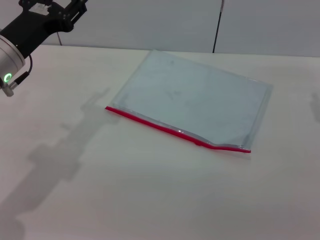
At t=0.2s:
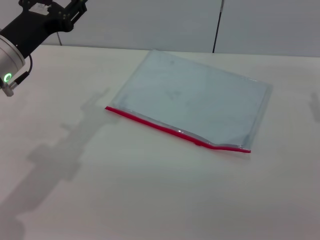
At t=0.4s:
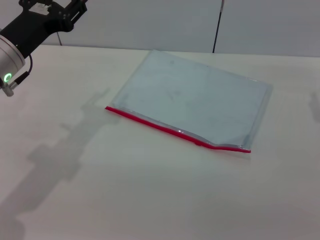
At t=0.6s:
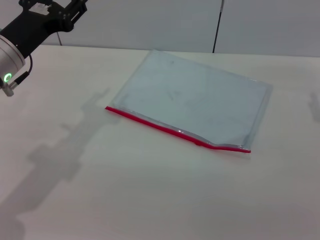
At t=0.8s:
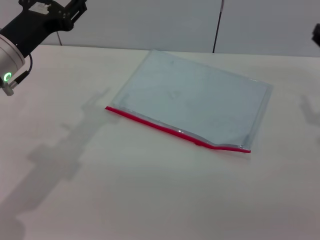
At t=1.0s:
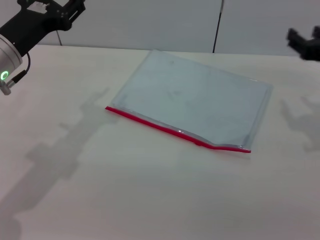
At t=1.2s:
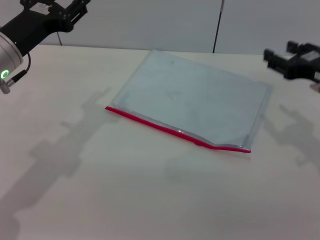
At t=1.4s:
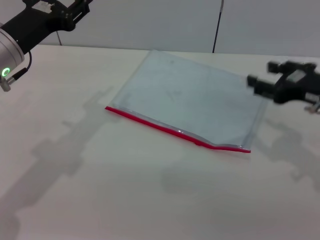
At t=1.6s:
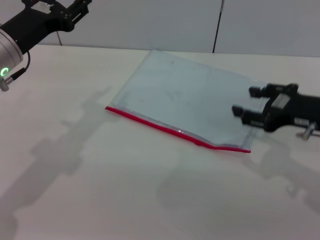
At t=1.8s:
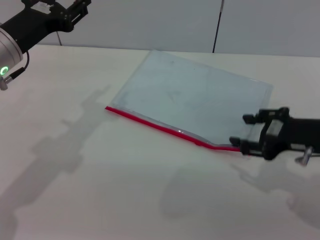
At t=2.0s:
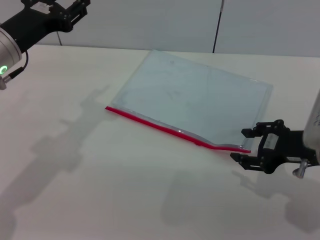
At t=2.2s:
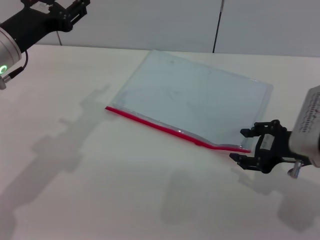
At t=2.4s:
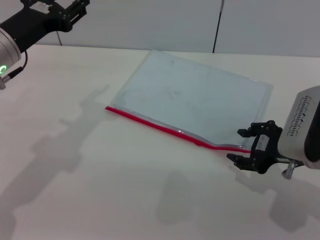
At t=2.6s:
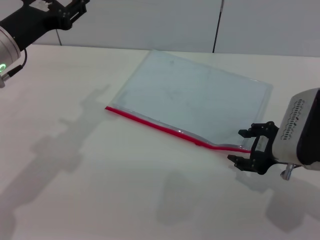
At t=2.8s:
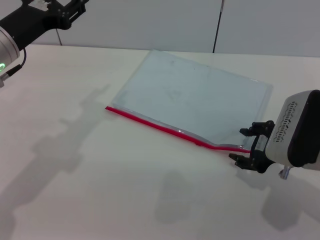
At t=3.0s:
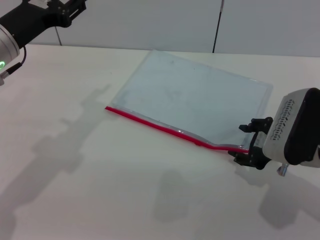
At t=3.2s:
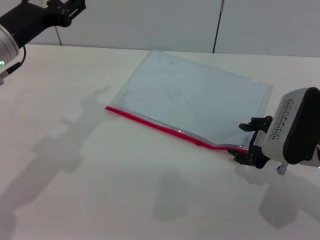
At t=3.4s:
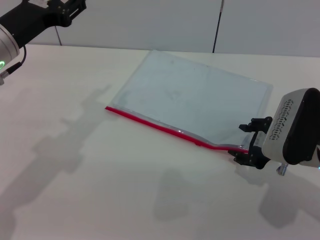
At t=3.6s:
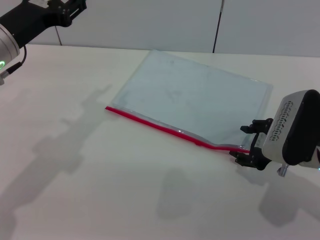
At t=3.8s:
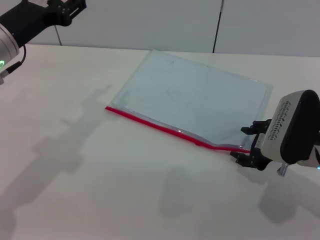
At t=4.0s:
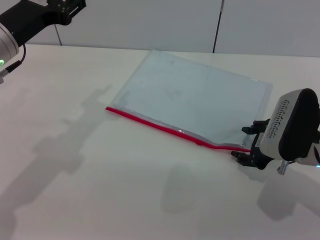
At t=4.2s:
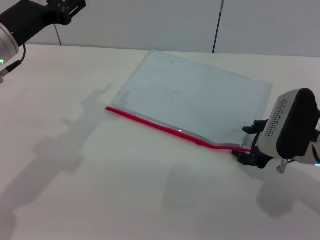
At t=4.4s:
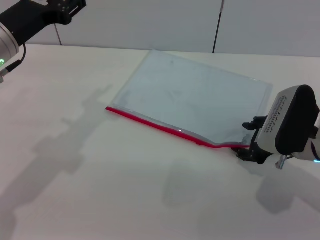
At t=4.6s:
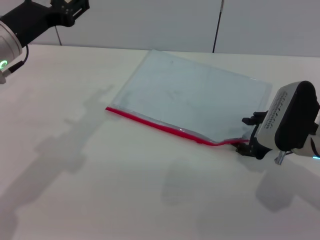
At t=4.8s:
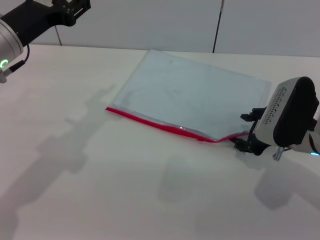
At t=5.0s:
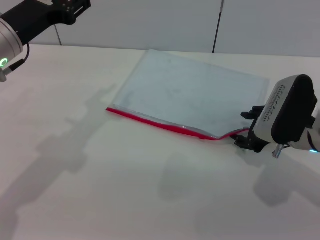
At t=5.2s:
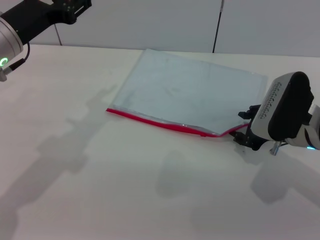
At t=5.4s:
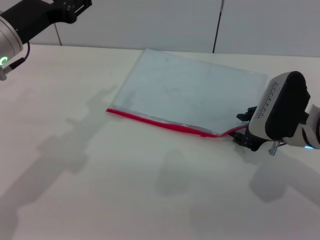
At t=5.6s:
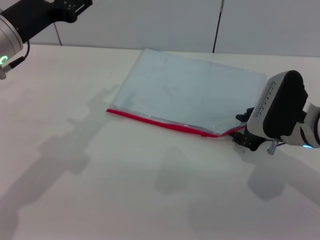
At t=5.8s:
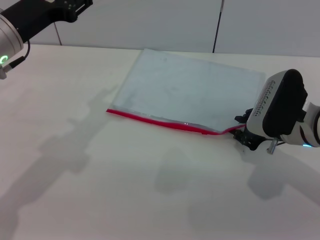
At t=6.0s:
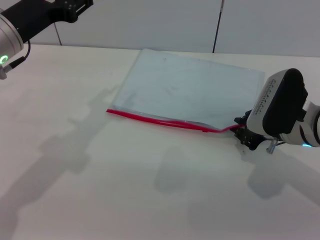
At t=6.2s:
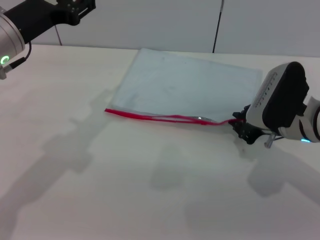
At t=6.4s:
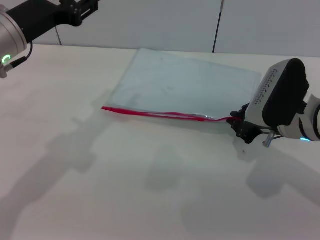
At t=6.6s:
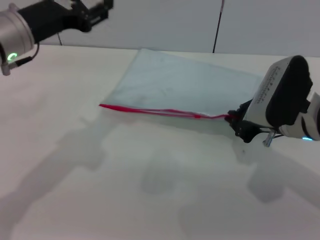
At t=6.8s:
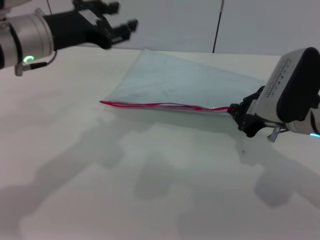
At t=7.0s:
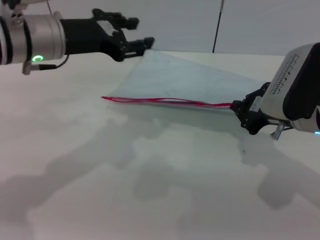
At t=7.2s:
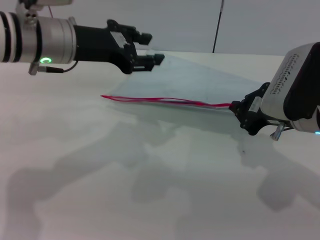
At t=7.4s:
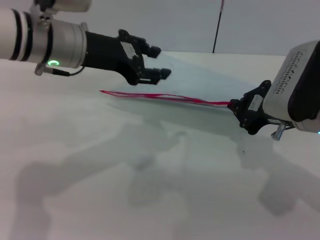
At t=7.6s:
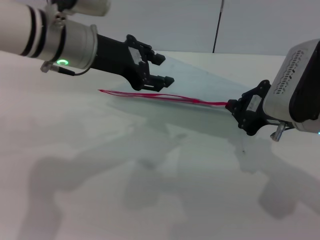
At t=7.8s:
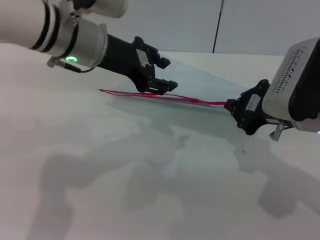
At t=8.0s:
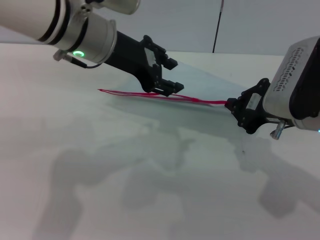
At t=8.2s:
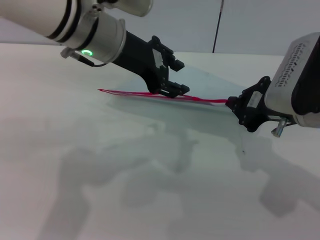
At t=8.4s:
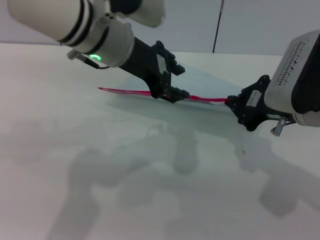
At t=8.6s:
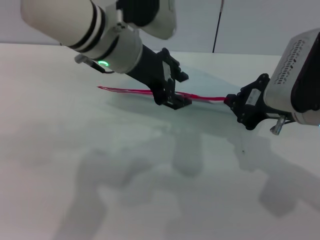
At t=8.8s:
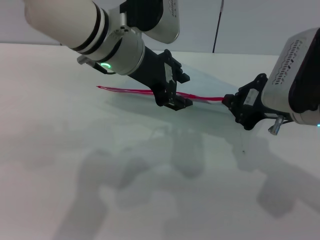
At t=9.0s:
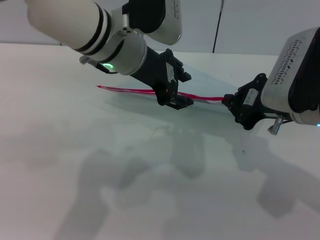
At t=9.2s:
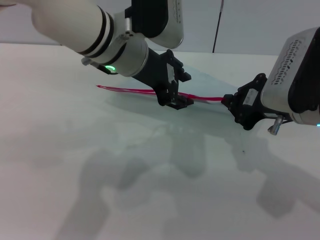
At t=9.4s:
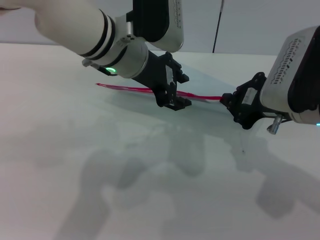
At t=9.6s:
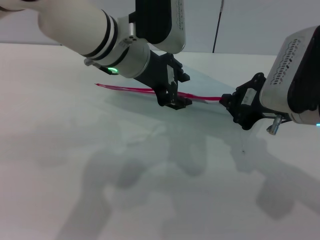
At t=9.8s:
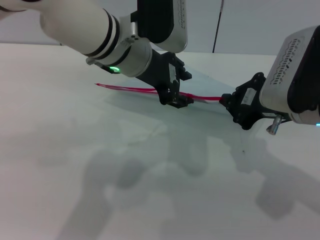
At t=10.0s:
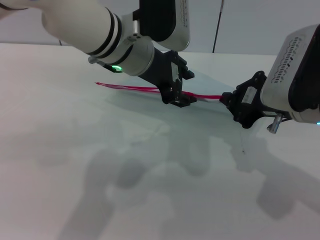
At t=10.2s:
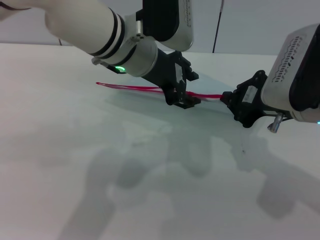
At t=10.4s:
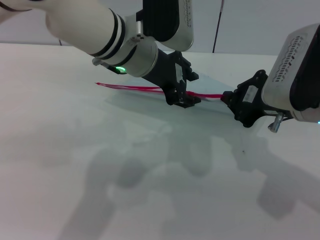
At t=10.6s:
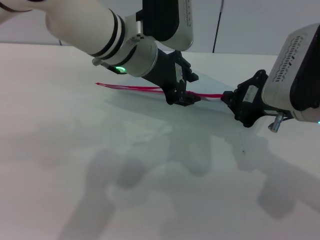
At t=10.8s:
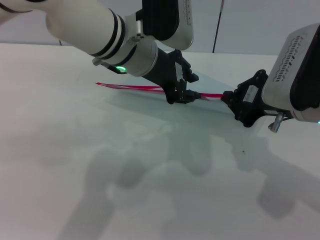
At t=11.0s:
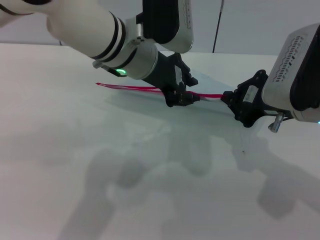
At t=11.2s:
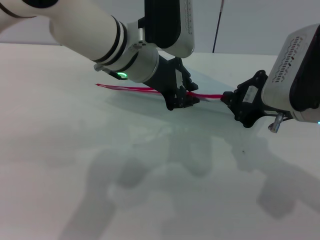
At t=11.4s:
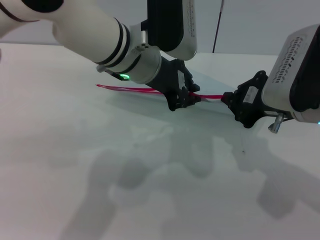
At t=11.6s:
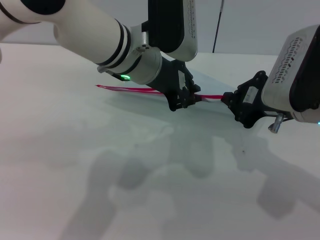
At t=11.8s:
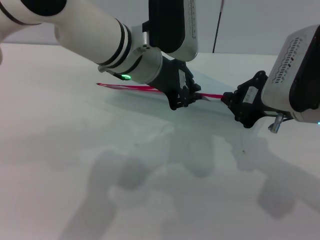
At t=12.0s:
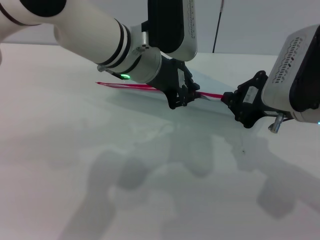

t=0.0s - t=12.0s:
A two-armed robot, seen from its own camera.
Step, t=0.0s - t=7.6s: Pick up the transparent plastic bag with the right gripper.
t=0.0s - t=1.6s: The right gripper changes place by some 5 cm.
t=1.6s - t=3.0s: The right gripper moves about 5 cm.
t=3.0s - t=4.4s: The grippers move only a little.
t=4.4s - t=6.0s: The right gripper closes up.
t=6.0s - t=7.6s: The right gripper travels upward by roughly 5 cm, and closes its fingers. The left gripper moves to the right, approximately 10 cm.
t=7.6s - t=9.0s: The left gripper is displaced to the right by approximately 5 cm.
t=9.0s - t=10.4s: The grippers stay close to where they were, moving slightly.
t=10.4s - t=12.0s: The left gripper closes up.

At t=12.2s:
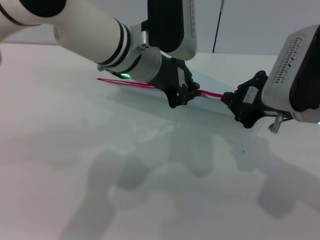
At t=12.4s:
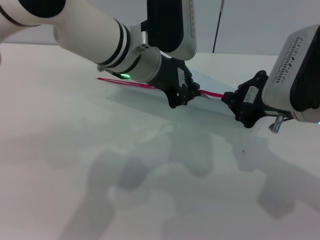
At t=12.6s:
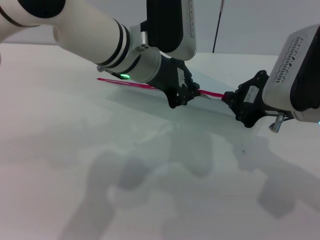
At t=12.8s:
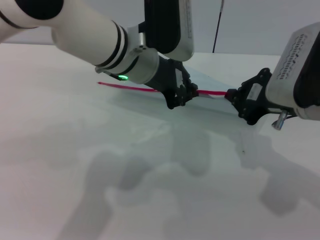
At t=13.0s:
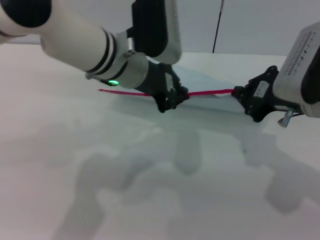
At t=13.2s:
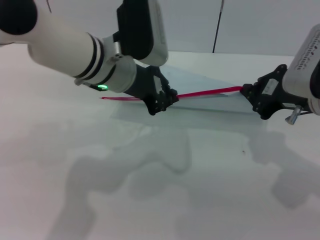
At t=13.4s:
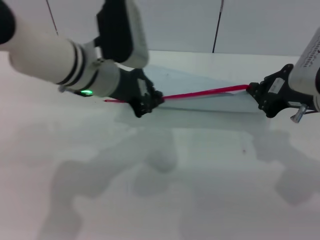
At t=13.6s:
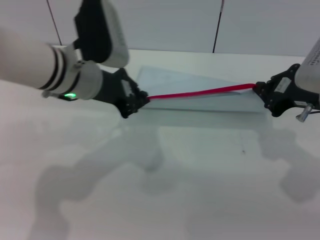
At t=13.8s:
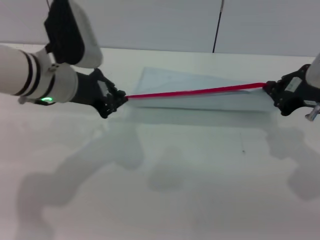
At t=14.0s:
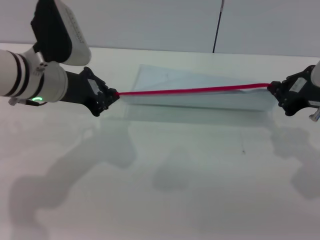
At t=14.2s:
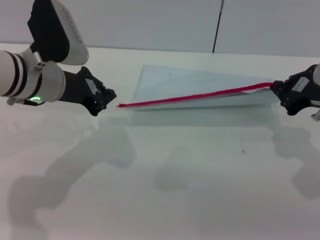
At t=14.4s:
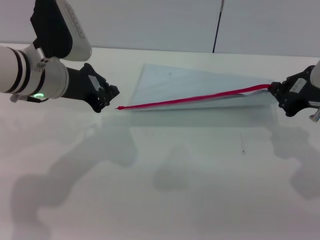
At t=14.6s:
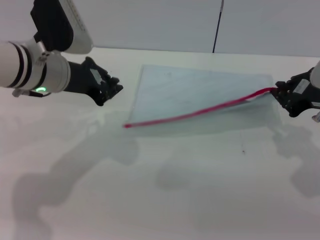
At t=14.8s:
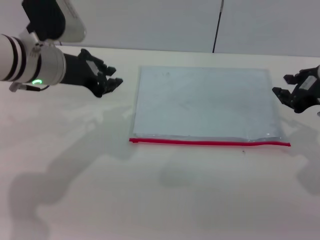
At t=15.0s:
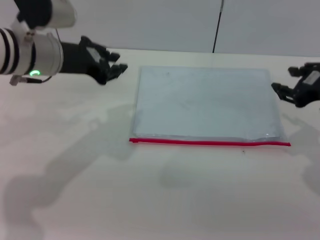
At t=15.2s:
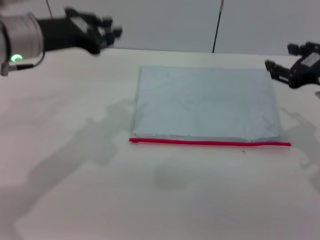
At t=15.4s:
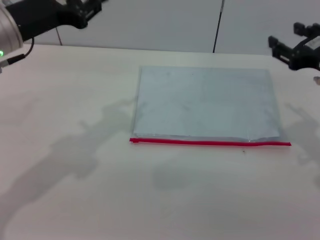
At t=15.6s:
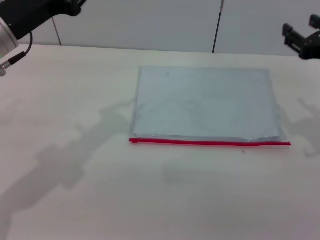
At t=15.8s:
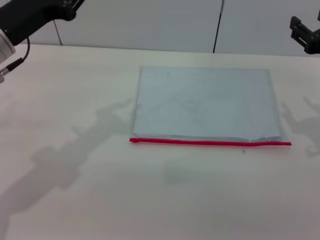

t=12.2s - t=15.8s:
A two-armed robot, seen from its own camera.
Step, t=12.2s - t=14.4s: Pulling up the zipper on the transparent plastic bag with the left gripper to close it.
Step, t=14.6s - t=15.0s: Place the transparent plastic bag.
t=12.2s - t=14.0s: The left gripper shifts roughly 15 cm to the left, while the right gripper is displaced to the right by about 5 cm.
t=14.0s - t=15.8s: The right gripper opens; the left gripper ends up about 5 cm from where it was, and opens up.
